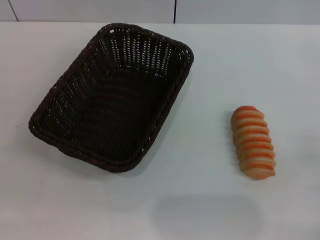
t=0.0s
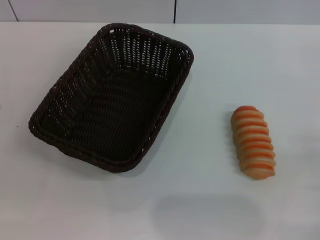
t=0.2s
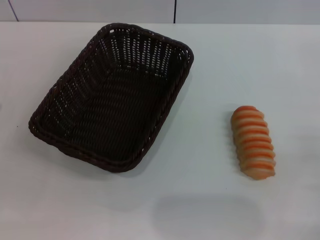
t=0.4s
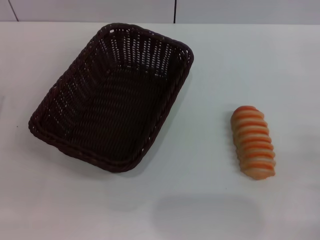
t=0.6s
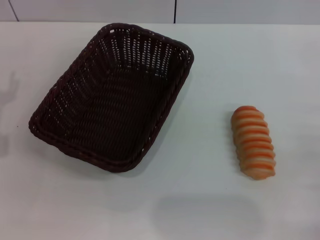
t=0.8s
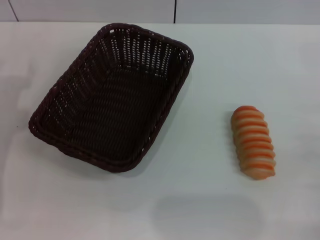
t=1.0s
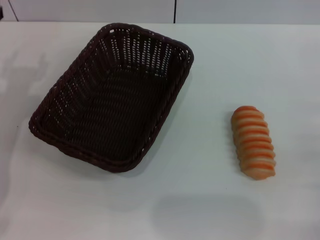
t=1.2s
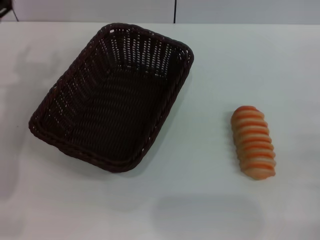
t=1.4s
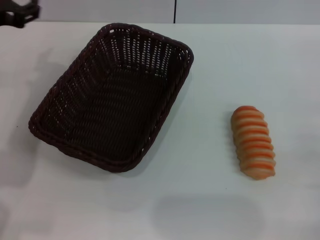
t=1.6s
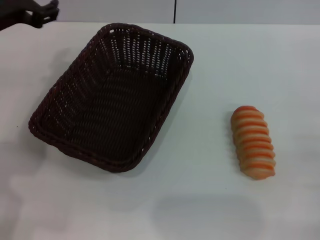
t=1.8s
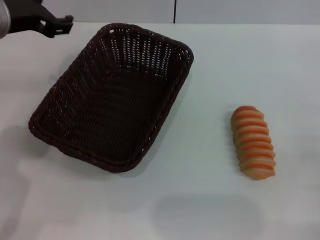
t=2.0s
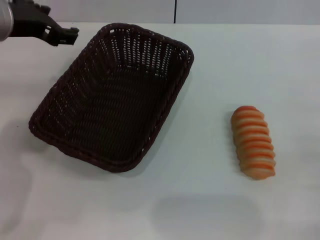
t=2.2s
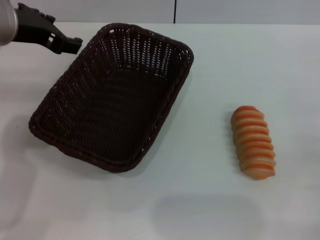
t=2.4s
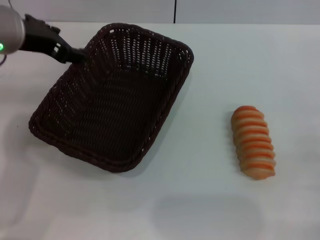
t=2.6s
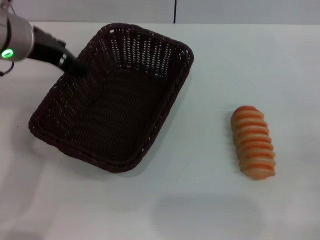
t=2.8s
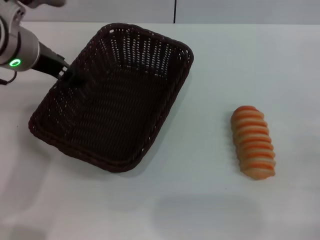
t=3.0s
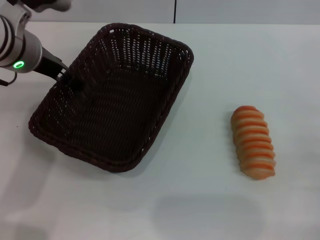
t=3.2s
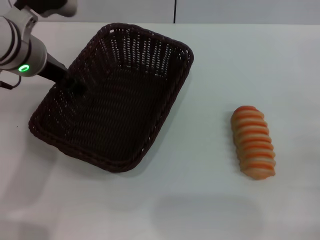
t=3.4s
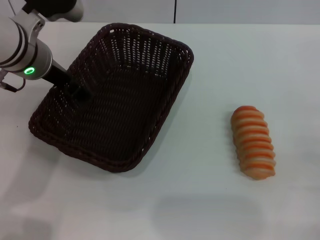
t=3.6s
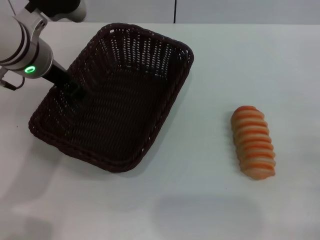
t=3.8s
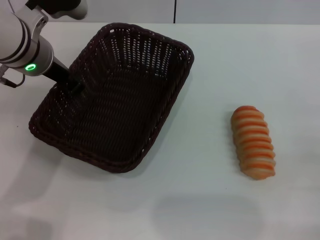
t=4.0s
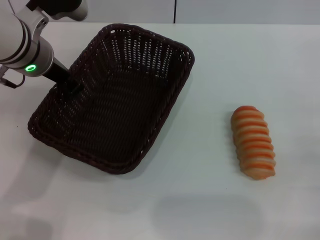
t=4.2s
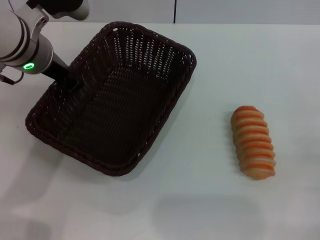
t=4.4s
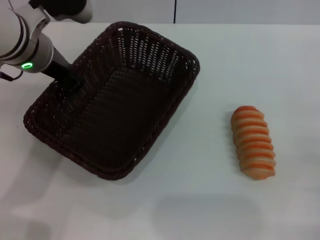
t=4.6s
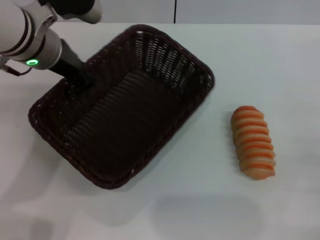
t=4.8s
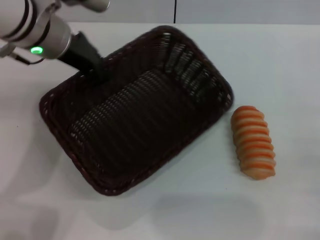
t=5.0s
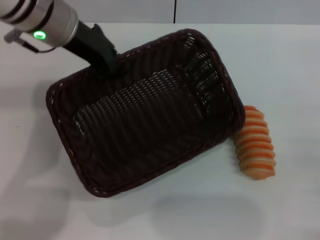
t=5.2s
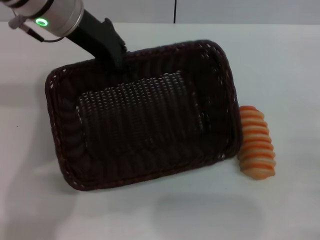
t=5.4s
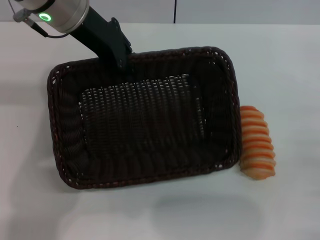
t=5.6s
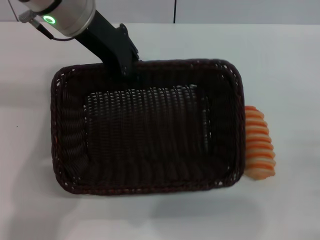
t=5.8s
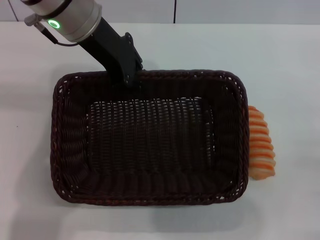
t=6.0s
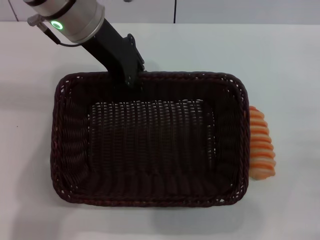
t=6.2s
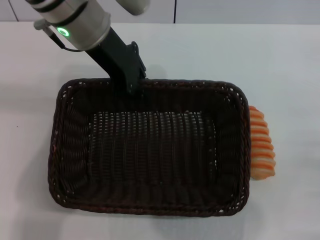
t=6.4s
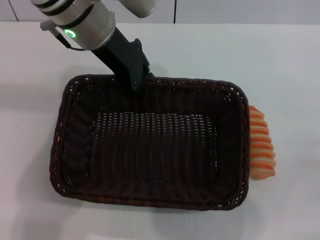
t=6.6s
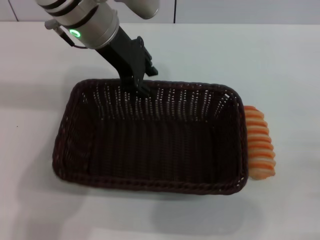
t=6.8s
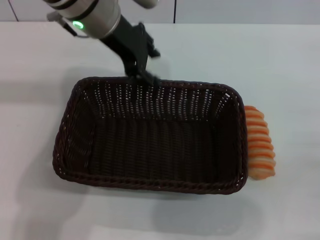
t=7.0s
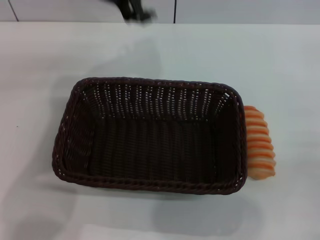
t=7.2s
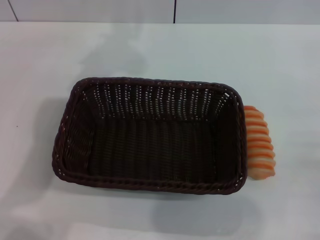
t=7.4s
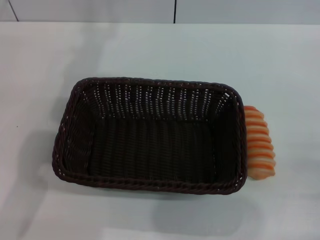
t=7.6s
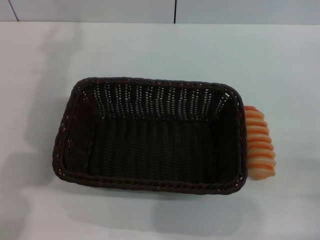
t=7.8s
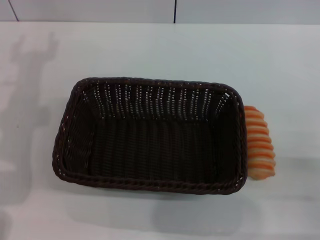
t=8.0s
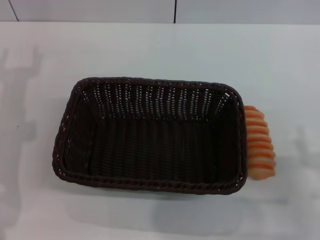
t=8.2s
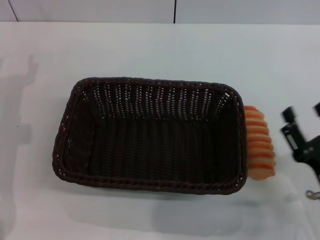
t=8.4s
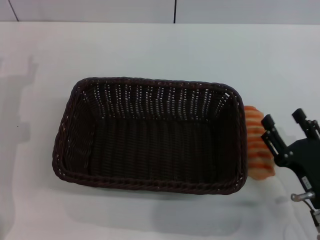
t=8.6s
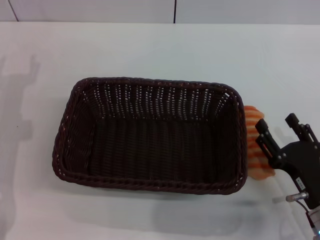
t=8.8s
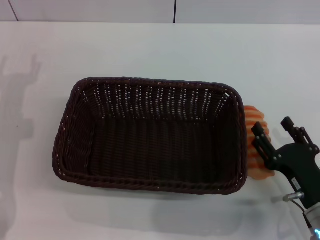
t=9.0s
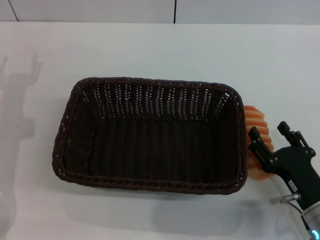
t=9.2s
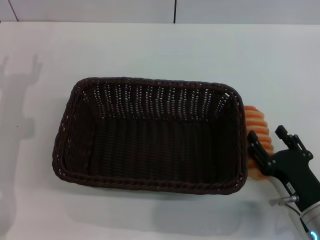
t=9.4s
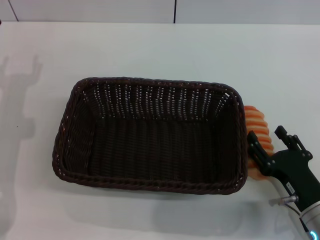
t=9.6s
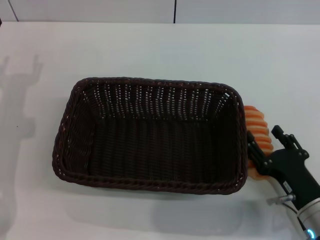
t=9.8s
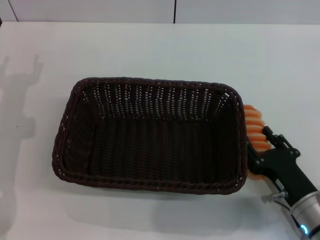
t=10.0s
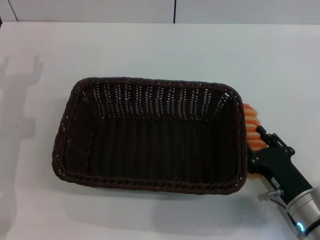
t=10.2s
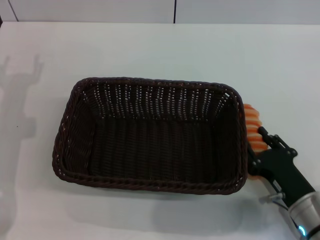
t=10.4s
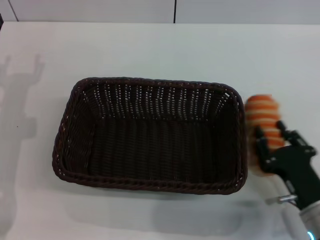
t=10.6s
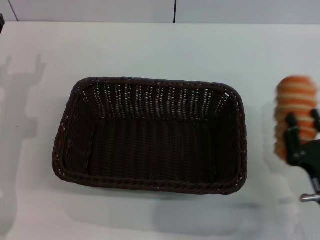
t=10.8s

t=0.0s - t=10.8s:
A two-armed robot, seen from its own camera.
Step, t=0.0s - t=4.8s: Pick up the dark basket with the left gripper.
Step, t=5.0s - t=7.0s: Place the dark basket in the center of view with the left gripper.
Step, t=7.2s - t=10.6s: Pick up the long bread with the right gripper.
t=0.0s - t=1.6s: The left gripper goes roughly 25 cm upward, forward and to the right.
t=1.6s - t=3.0s: The left gripper ends up some 5 cm from where it was.
t=3.0s - t=4.6s: The left gripper closes its fingers.
t=4.6s - t=6.2s: The left gripper is displaced to the right by roughly 5 cm.
t=6.2s - t=7.8s: The left gripper is displaced to the left and backward by some 10 cm, and opens.
t=7.8s - t=9.2s: The left gripper is displaced downward by about 15 cm. The right gripper heads to the left, covering approximately 10 cm.
t=9.2s - t=10.8s: The right gripper closes.

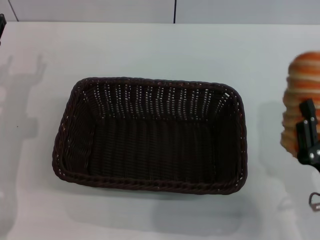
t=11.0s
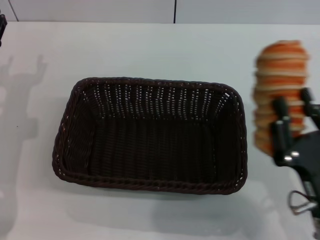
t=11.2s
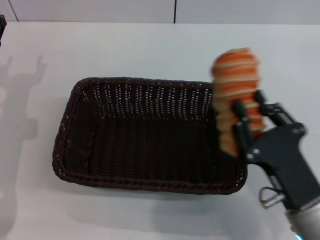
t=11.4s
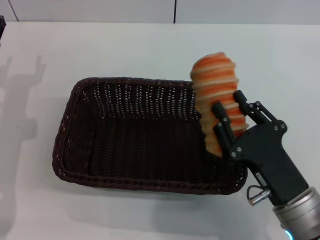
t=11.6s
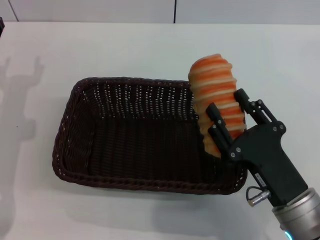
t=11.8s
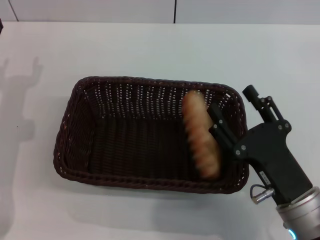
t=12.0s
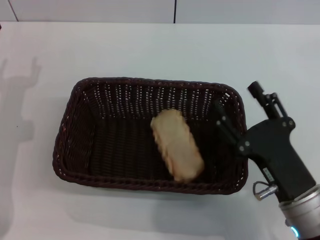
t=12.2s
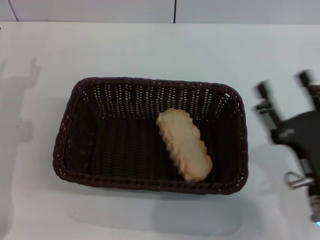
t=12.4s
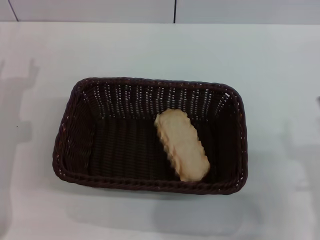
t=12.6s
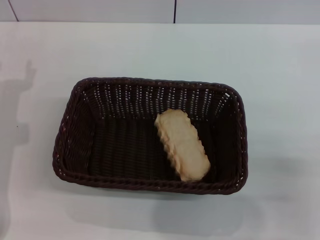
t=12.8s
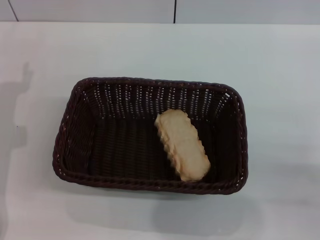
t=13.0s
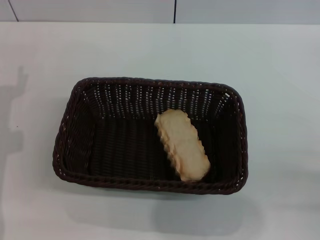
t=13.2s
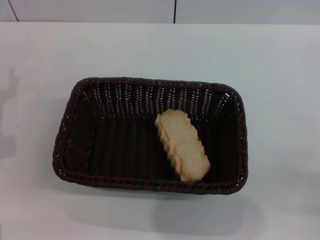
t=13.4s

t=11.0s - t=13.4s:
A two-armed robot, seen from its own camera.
Step, t=11.0s - t=12.0s: Place the long bread into the dark basket with the right gripper.
t=11.0s - t=12.2s: The right gripper ends up some 5 cm from where it was, and opens.
t=12.2s - t=13.4s: The right gripper shifts some 15 cm to the right.

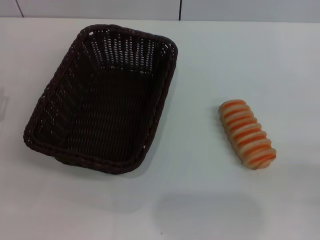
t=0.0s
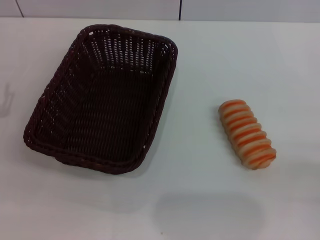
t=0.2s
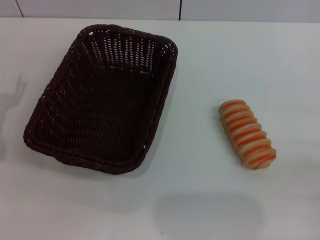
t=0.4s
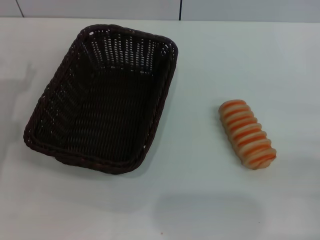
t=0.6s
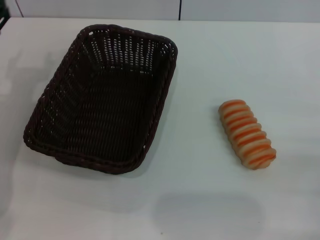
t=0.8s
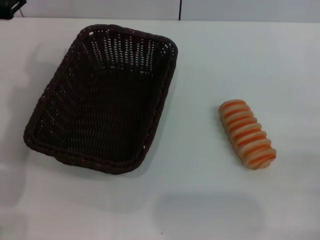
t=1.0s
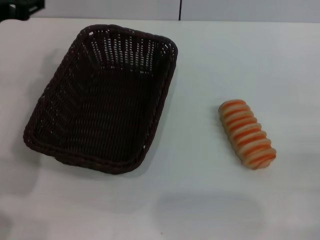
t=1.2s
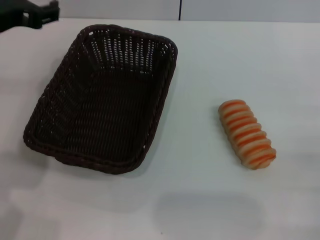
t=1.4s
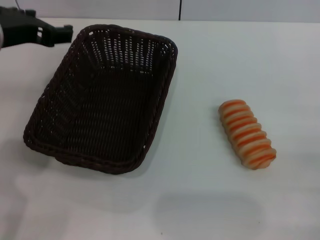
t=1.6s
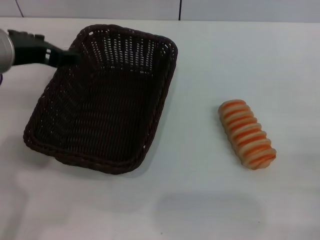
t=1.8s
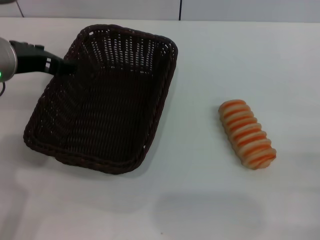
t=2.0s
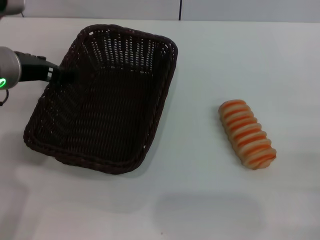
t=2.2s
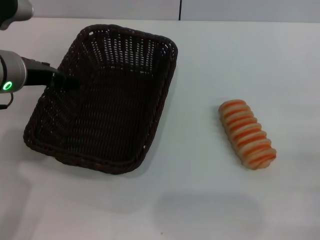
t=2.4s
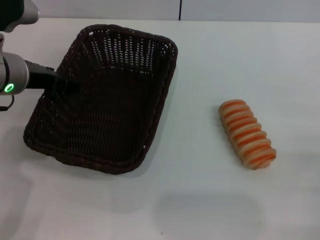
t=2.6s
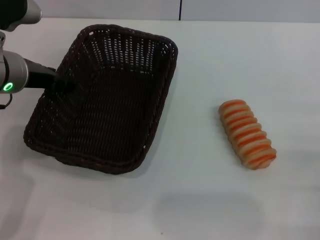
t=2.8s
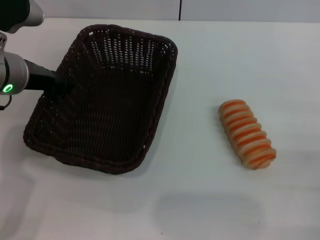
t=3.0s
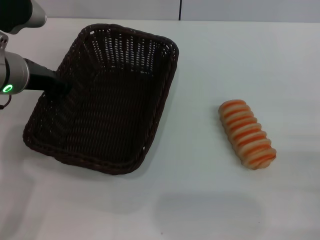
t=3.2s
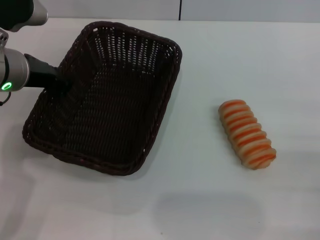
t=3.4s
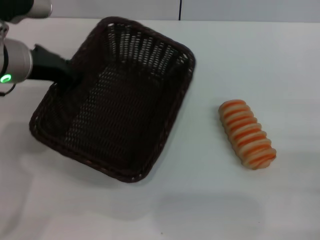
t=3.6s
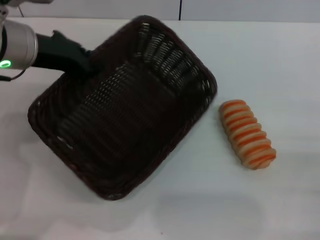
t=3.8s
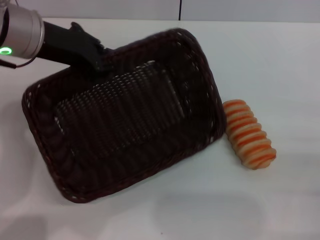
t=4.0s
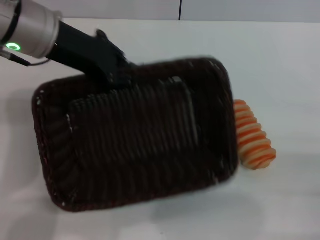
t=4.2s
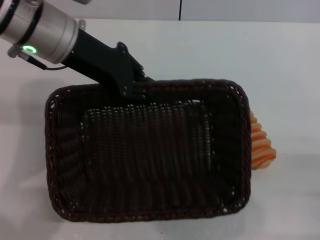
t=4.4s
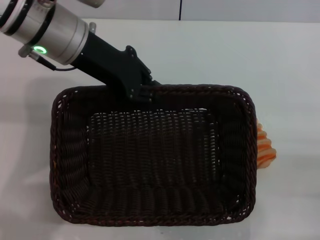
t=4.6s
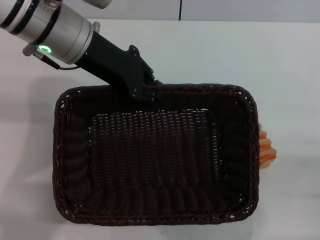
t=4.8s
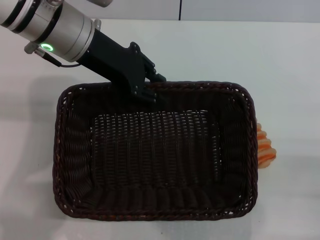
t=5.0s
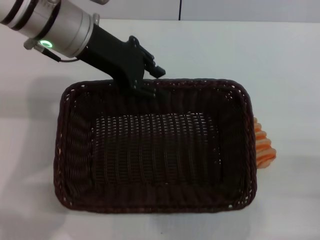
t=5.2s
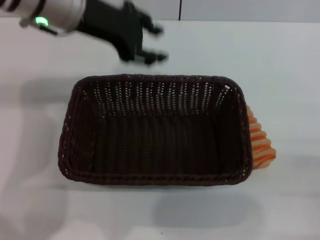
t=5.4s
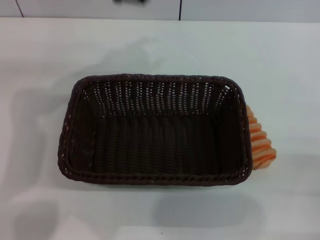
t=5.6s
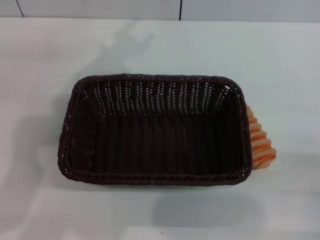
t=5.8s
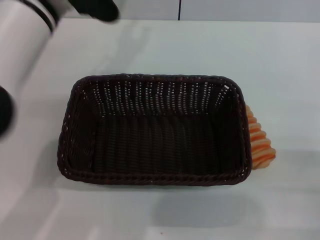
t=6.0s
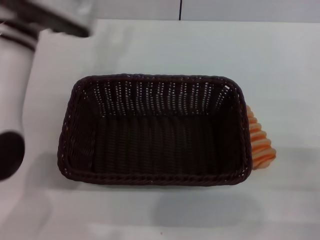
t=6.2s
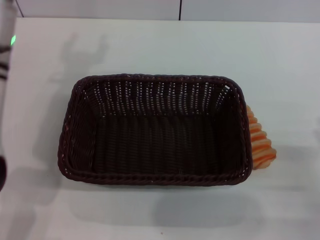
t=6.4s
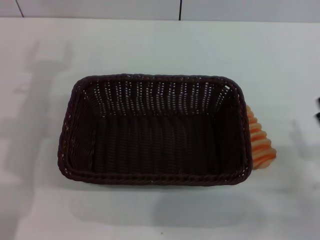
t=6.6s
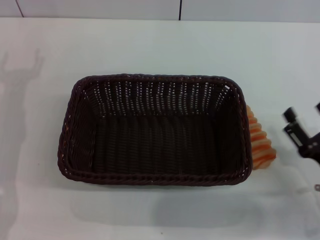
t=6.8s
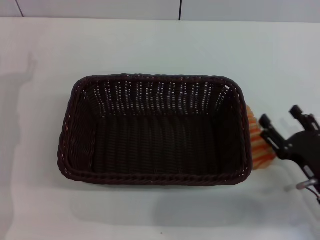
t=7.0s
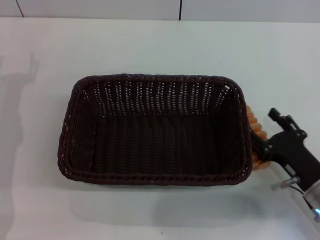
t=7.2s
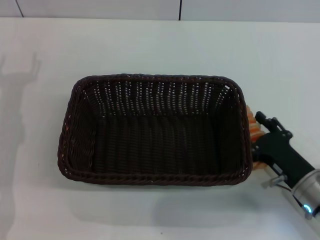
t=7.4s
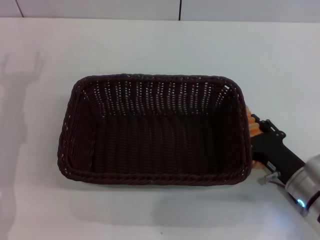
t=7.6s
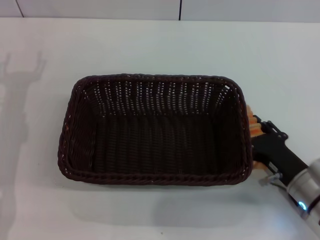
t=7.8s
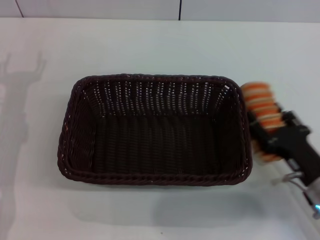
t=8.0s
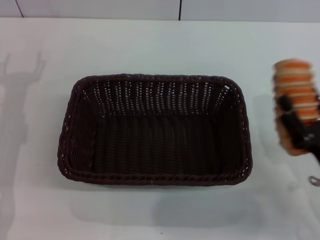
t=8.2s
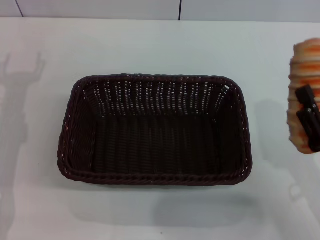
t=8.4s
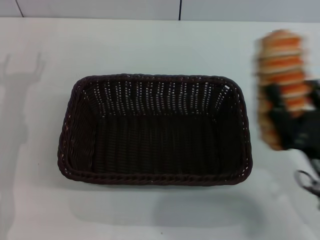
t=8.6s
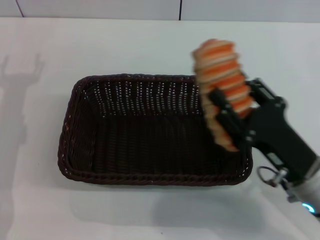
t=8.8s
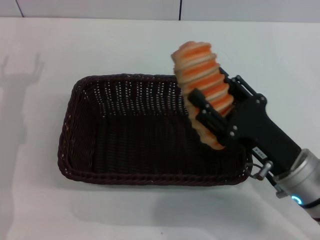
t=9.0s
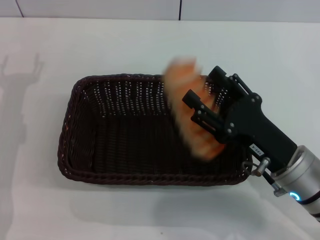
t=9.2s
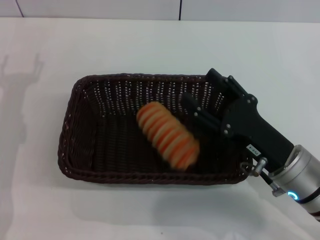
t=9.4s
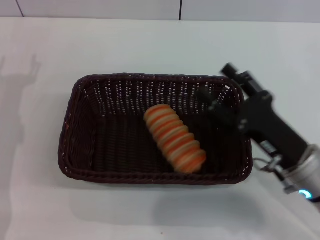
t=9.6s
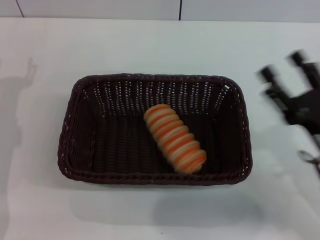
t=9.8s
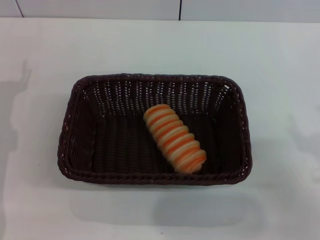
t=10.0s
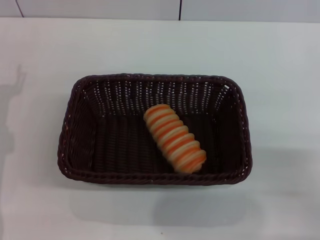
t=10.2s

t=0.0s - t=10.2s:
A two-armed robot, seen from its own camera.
Step, t=0.0s - t=3.8s: Pick up the dark basket with the left gripper.
Step, t=4.0s - t=5.2s: Place the dark basket in the center of view with the left gripper.
Step, t=5.6s - t=8.4s: Pick up the long bread with the right gripper.
Step, t=8.6s - t=9.4s: Place the long bread into the dark basket with the right gripper.
t=0.0s - t=1.4s: The left gripper shifts some 20 cm upward and to the right.
t=1.4s - t=3.0s: The left gripper goes some 5 cm downward.
t=3.0s - t=4.4s: The left gripper is displaced upward and to the right by roughly 10 cm, and closes.
t=4.4s - t=5.8s: The left gripper opens its fingers.
t=5.8s - t=7.2s: The left gripper goes roughly 25 cm downward, to the left and backward. Meanwhile the right gripper shifts roughly 10 cm to the left and forward.
t=7.2s - t=8.8s: The right gripper goes some 5 cm upward, and closes up.
t=8.8s - t=10.2s: The right gripper moves to the right, approximately 10 cm, and opens.
